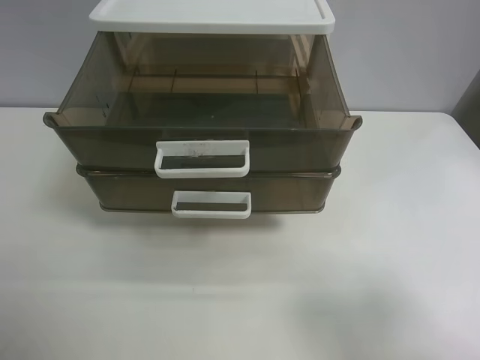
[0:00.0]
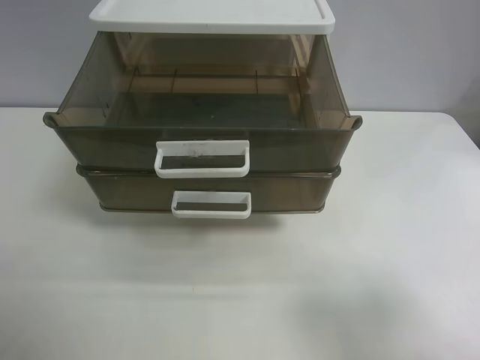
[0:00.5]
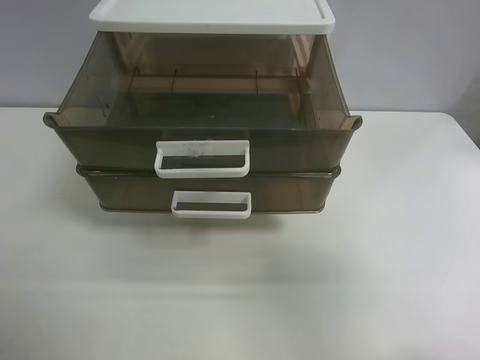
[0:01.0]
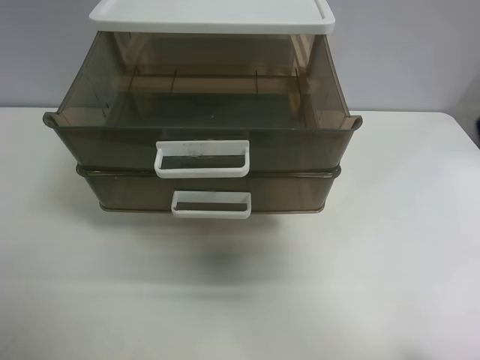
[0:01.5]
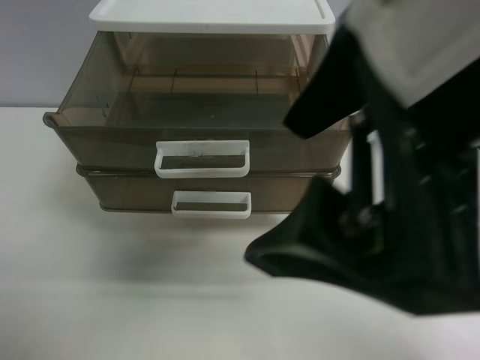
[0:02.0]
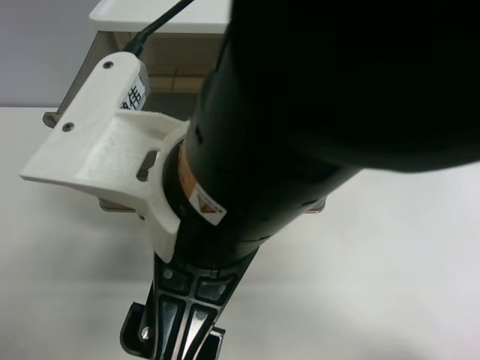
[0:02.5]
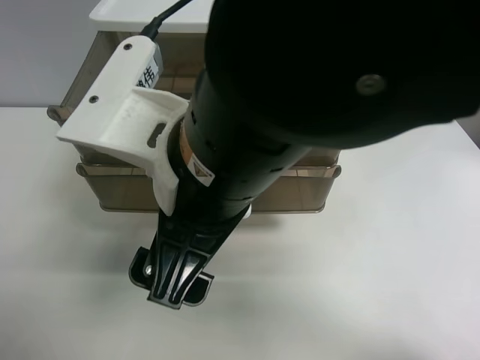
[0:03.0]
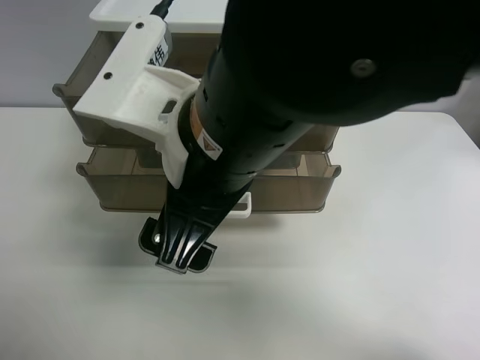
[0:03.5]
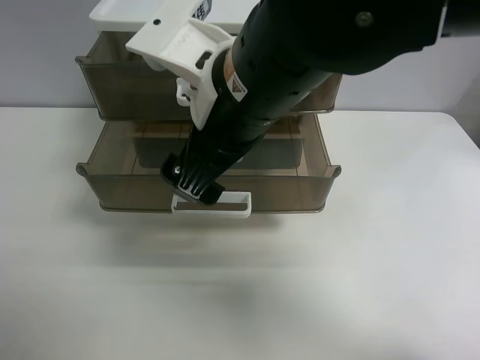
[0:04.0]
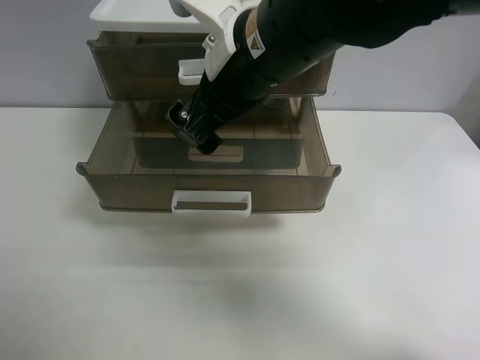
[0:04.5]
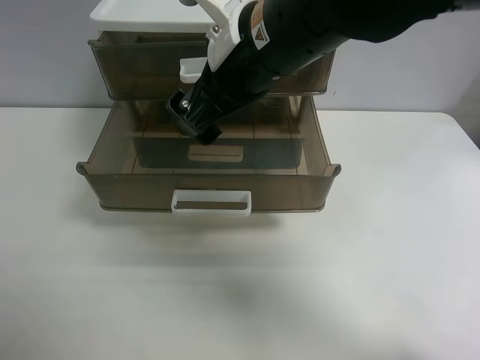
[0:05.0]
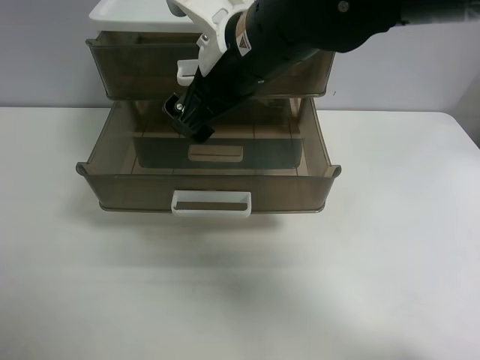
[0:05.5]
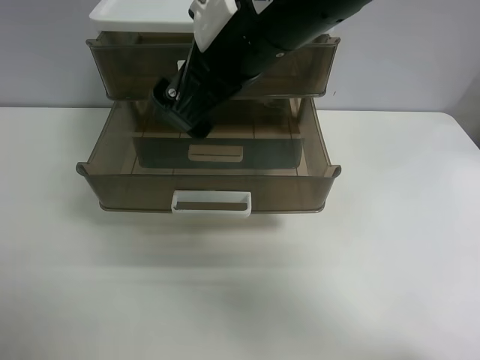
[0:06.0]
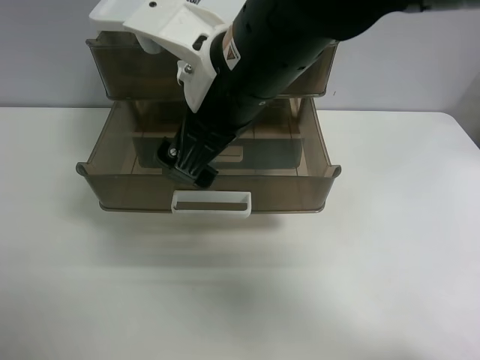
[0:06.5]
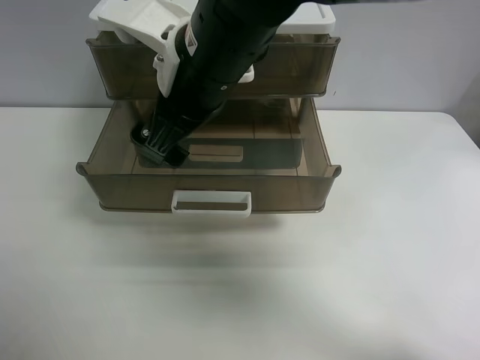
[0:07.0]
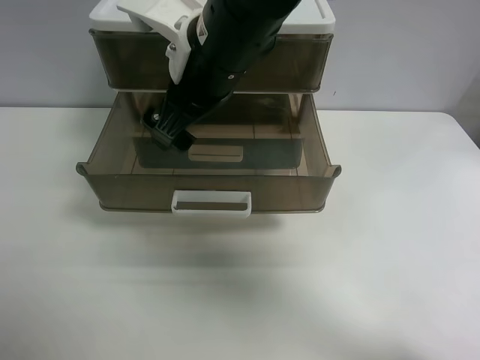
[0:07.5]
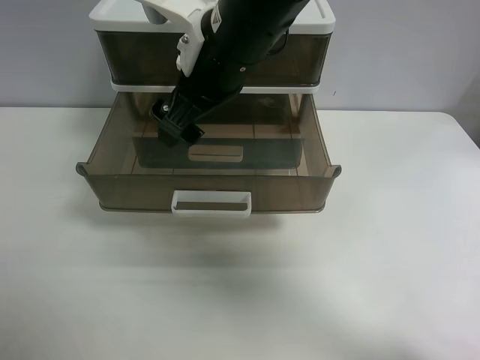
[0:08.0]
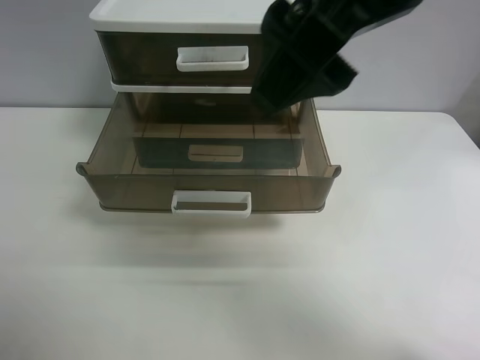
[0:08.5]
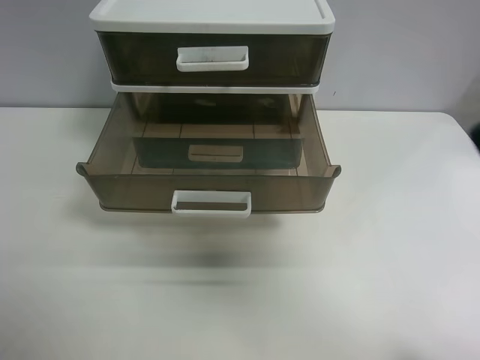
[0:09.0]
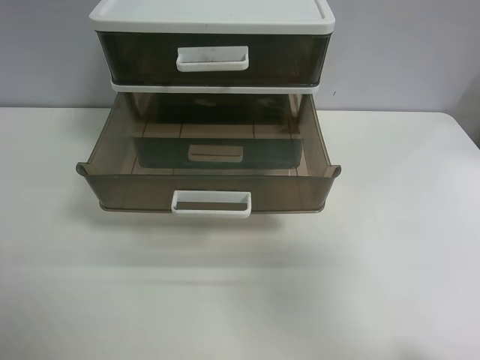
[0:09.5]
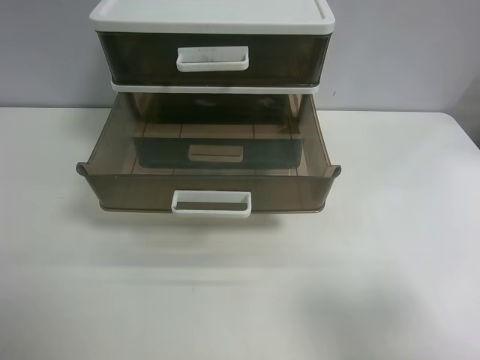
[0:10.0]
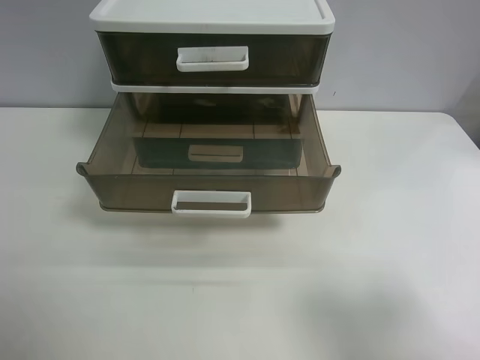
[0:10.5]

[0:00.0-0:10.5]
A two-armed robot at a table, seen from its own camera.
Task of the whole recording: close the top drawer.
Step, 0:00.0 to 0:02.5: Use the right gripper to touch the topmost layer of the storage cabinet.
Step, 0:03.0 to 0:08.0: Push the top drawer closed.
0:00.0 to 0:02.0: The right gripper travels to the left, upward and forward by about 25 cm.
0:02.0 to 0:04.0: The right gripper shifts roughly 15 cm forward, downward and to the left.
0:06.5 to 0:08.5: The right gripper is displaced upward and to the right by approximately 15 cm.
0:08.5 to 0:10.5: The right gripper goes some 30 cm to the right, backward and downward.
